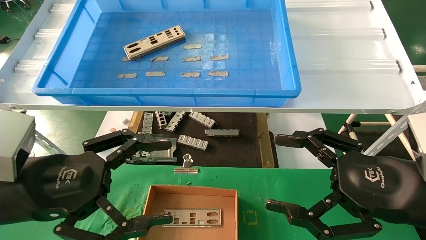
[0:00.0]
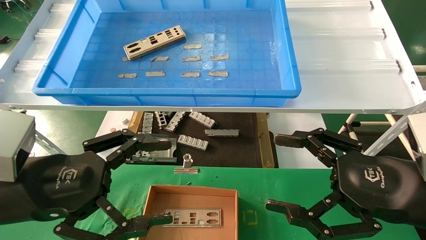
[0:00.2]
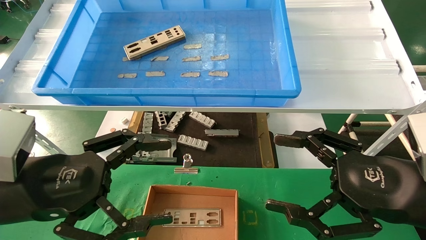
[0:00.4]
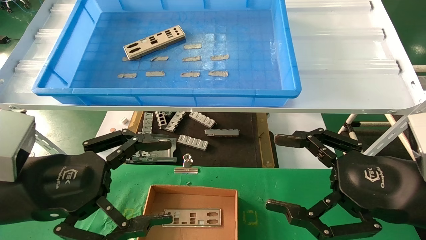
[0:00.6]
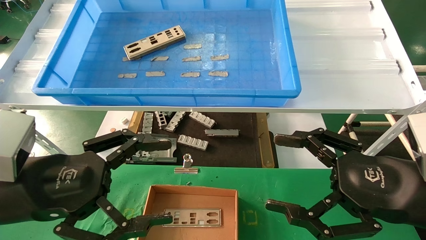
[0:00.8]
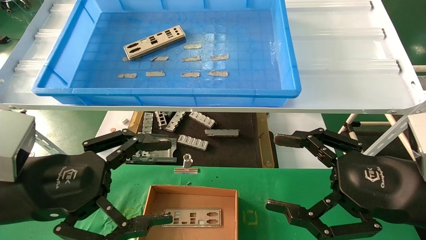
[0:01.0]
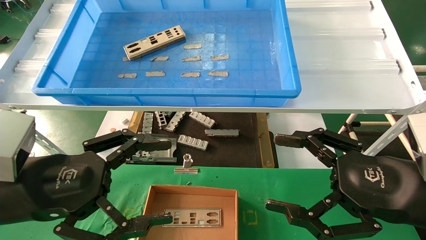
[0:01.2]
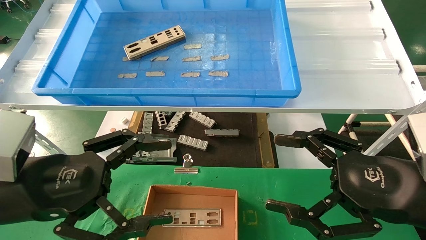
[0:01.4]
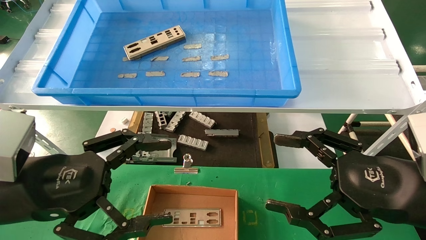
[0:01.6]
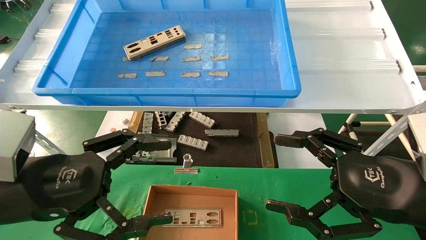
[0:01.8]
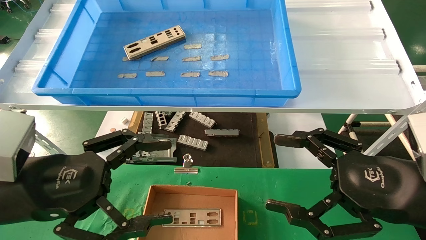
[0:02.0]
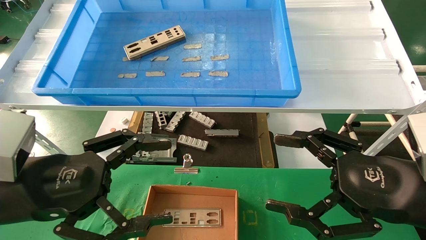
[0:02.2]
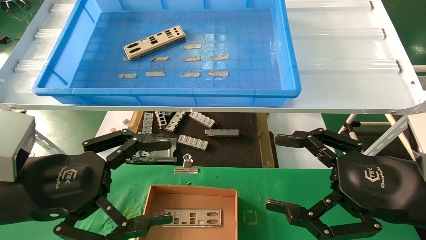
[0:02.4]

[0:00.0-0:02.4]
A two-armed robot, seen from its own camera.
Task of the whole recording: pick up the parts on the tray and put them in the cardboard box.
0.0 to 2.4 s: Both grippers stay put.

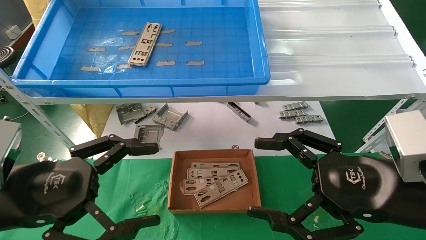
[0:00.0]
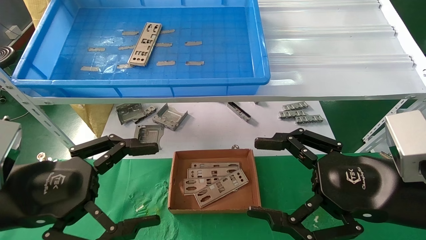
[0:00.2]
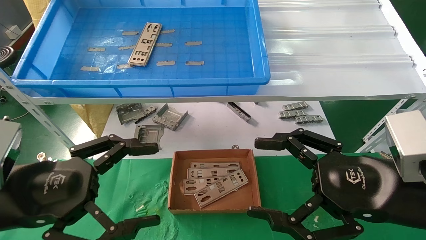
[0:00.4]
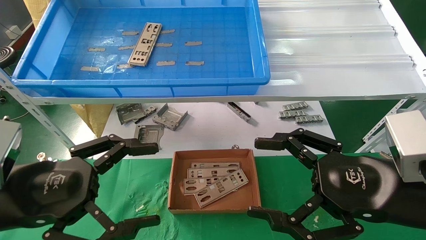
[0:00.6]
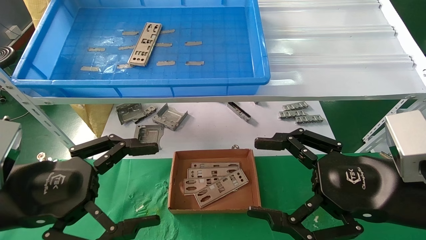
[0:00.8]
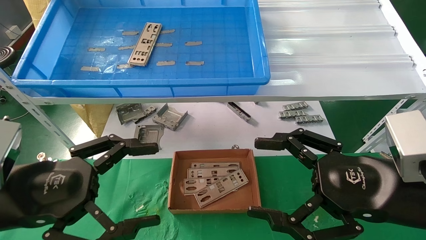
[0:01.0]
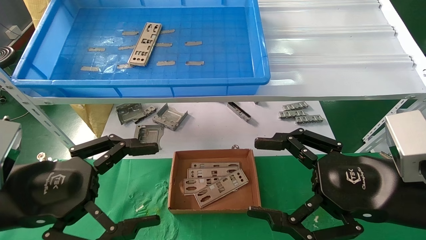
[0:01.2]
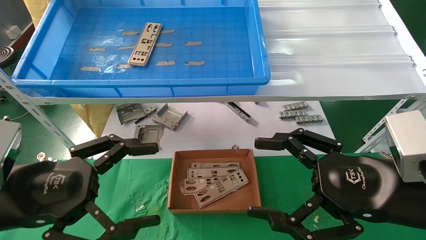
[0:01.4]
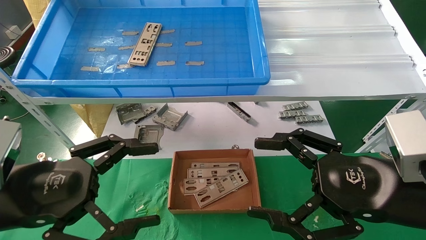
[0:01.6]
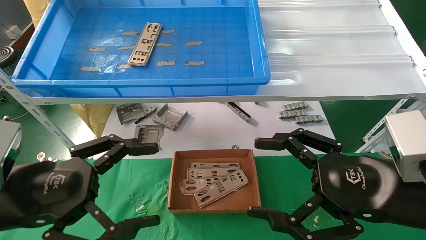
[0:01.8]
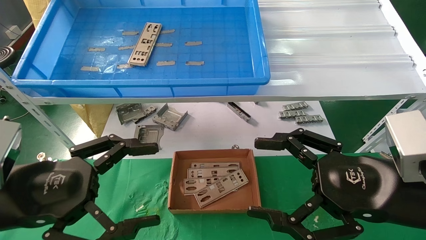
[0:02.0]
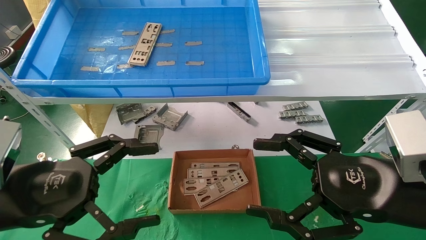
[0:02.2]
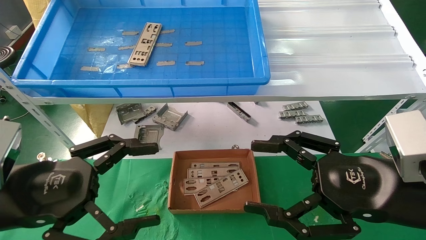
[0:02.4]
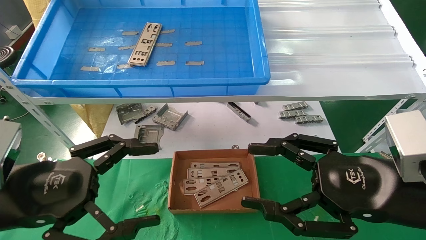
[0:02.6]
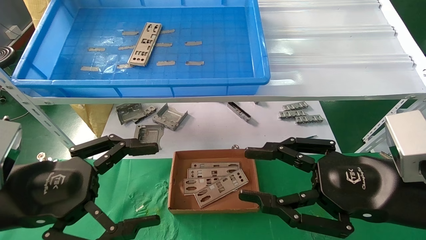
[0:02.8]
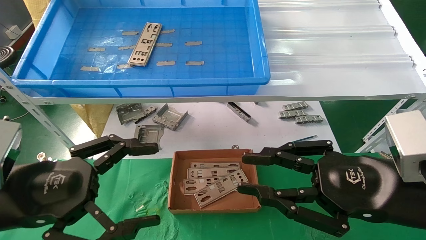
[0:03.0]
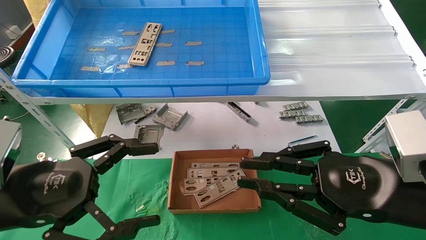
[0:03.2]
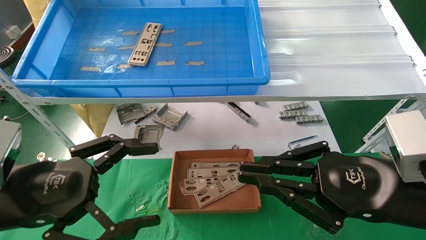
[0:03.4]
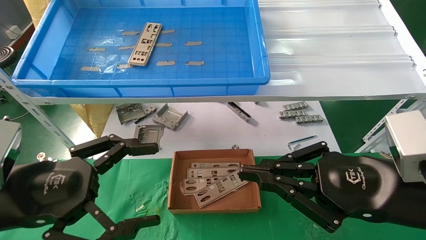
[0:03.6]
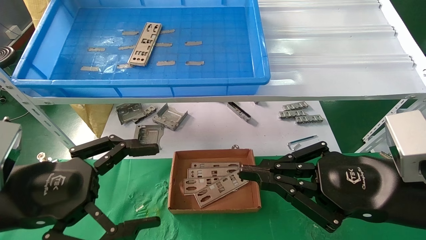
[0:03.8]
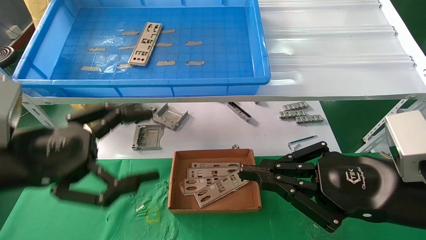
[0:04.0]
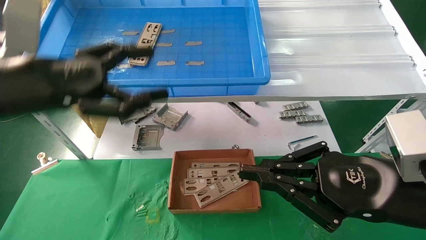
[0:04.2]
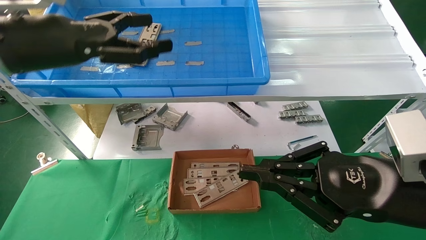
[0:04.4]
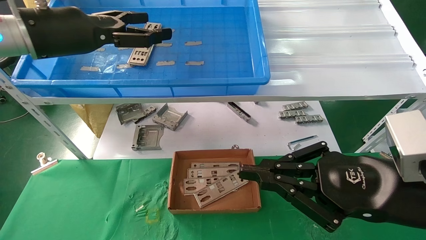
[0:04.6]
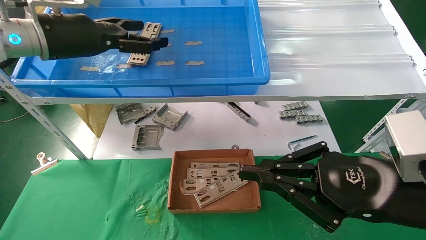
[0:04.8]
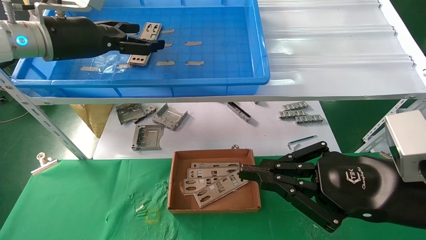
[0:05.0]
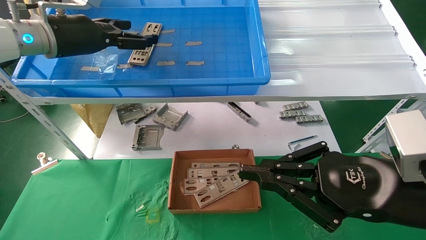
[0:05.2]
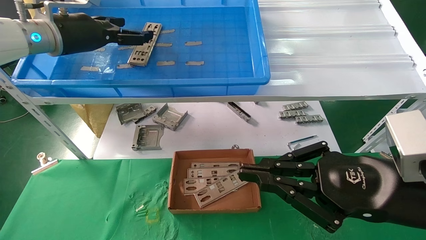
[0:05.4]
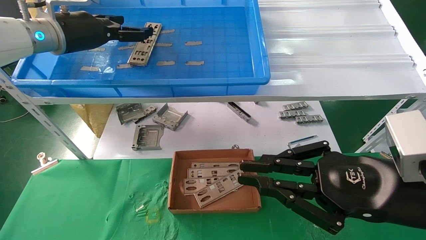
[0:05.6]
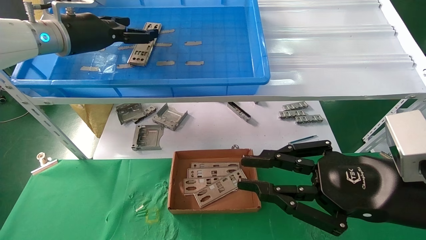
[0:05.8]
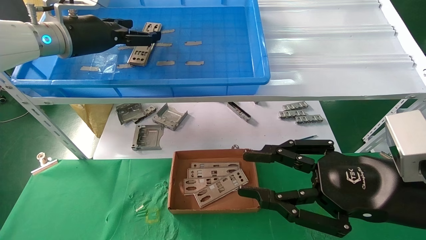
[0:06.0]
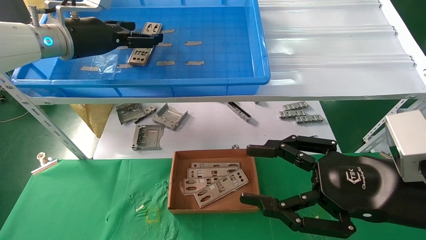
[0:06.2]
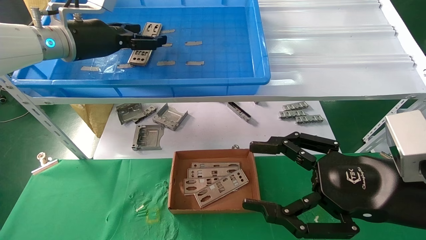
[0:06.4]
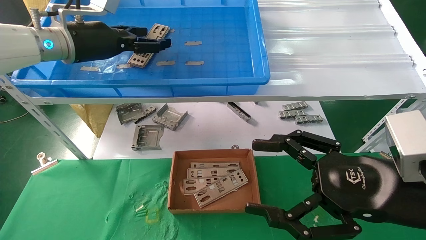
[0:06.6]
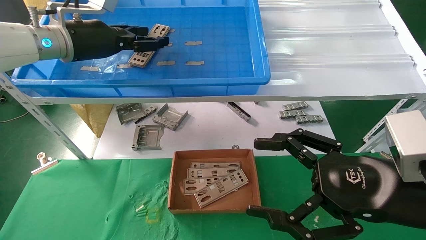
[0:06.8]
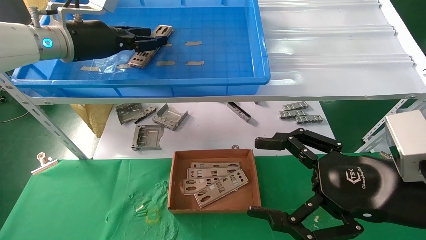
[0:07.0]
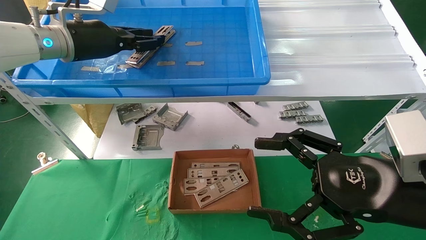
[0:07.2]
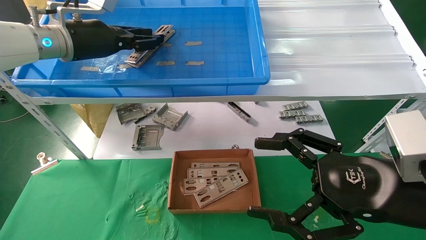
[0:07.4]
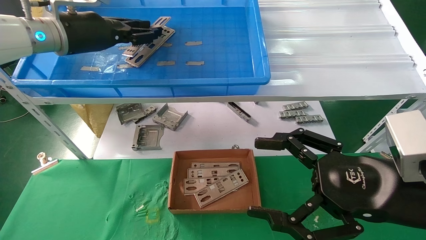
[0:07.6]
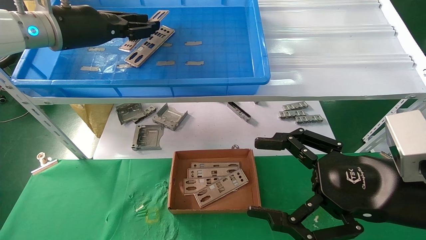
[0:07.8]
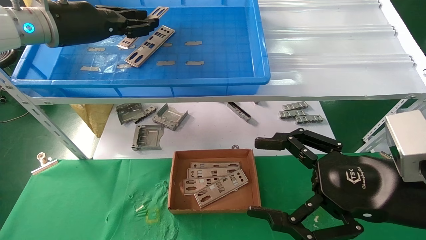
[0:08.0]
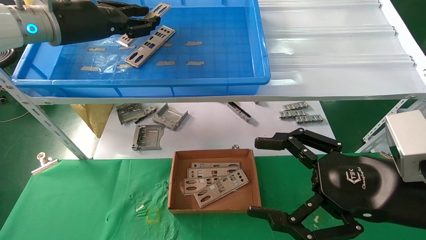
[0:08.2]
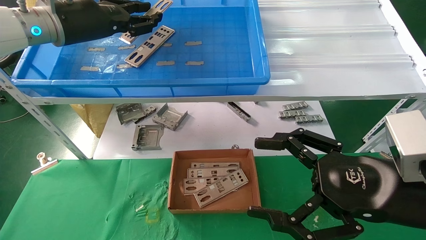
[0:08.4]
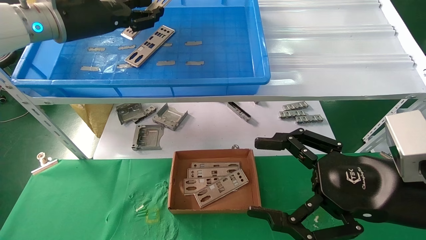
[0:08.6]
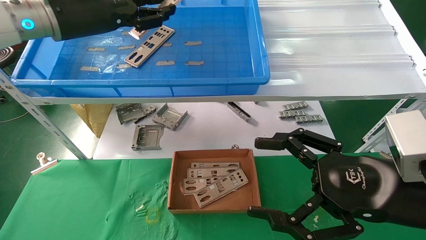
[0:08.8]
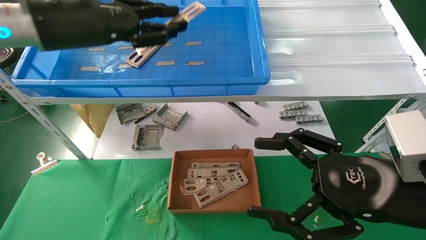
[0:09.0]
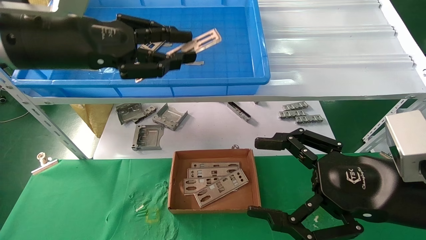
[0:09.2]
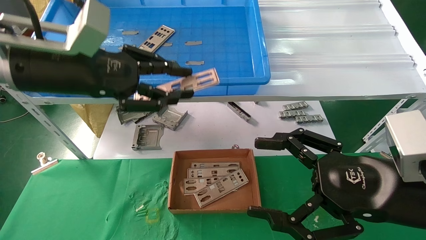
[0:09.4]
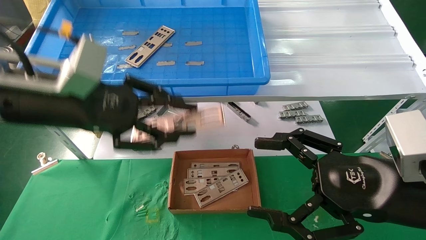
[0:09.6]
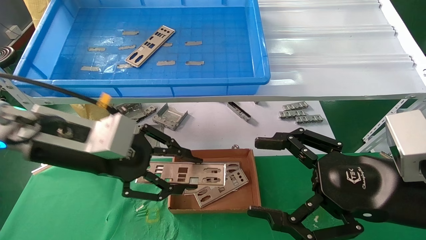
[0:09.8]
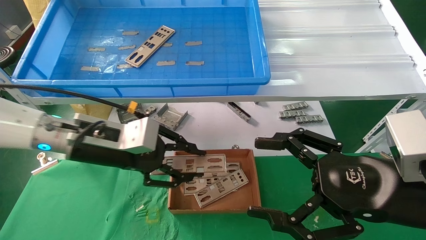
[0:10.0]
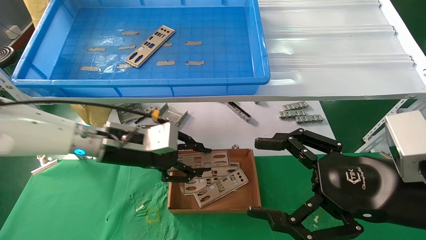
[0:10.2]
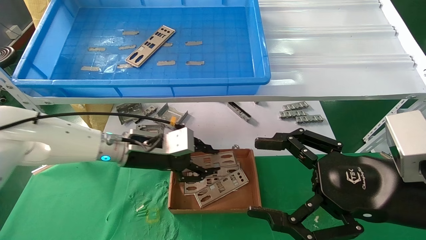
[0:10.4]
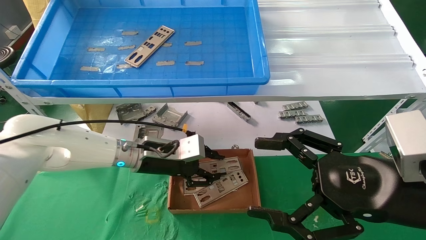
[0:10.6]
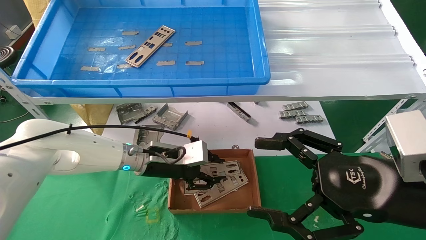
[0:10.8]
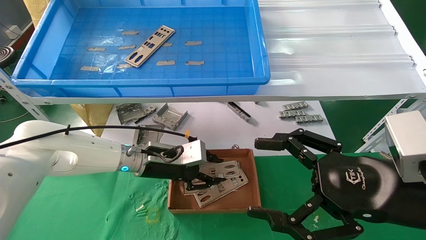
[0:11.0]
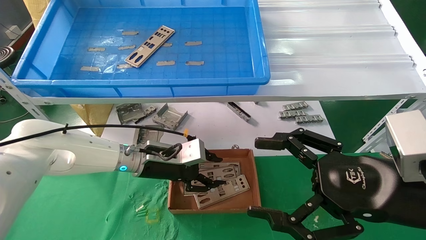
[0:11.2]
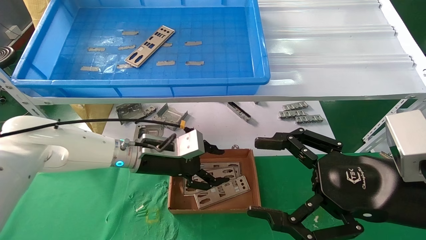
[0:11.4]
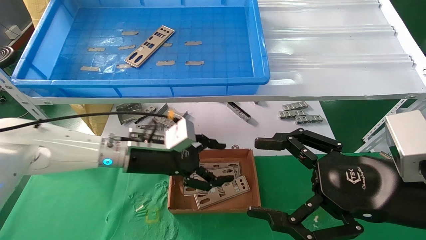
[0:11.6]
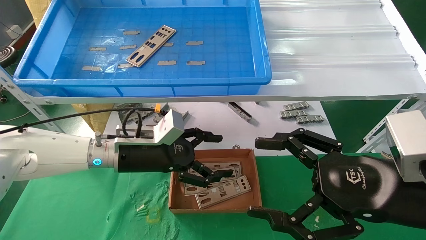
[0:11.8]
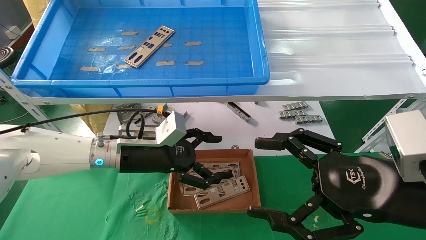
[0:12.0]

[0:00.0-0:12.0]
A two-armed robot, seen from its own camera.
Task of the whole recording: pick up the parts on the tray and put them in the cardboard box.
Step, 4.2 to 7.2 s: Pick up the IO bracket from the container box.
Step, 7.4 to 11.6 s: Place the IO bracket into the ingredient slot.
0.0 to 1.6 s: Both grippers stay about where they are.
1.6 to 3.0 s: The right gripper closes up.
3.0 to 4.4 s: The right gripper closes. Meanwhile the left gripper heads upward and forward, covering about 20 cm.
4.4 to 6.0 s: The left gripper heads forward, covering roughly 10 cm.
6.0 to 7.6 s: The right gripper opens its fingers; the left gripper closes its fingers.
7.6 to 9.0 s: The left gripper moves backward, about 5 cm.
9.0 to 10.4 s: The left gripper travels downward by about 20 cm.
10.4 to 12.0 s: The left gripper opens up.

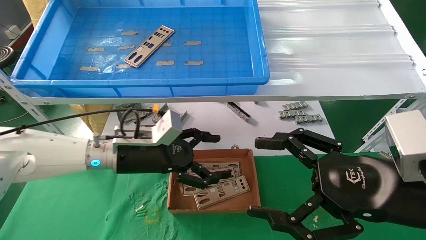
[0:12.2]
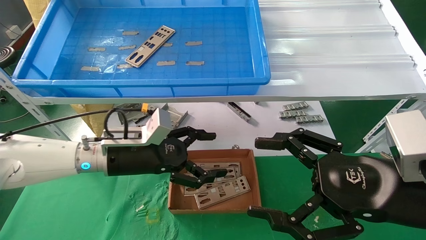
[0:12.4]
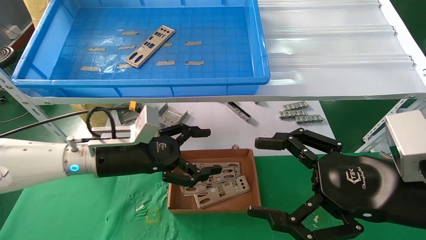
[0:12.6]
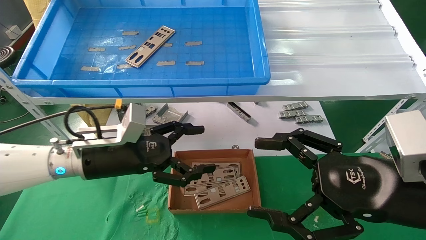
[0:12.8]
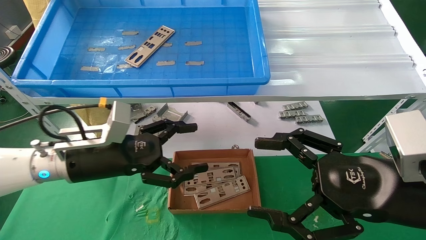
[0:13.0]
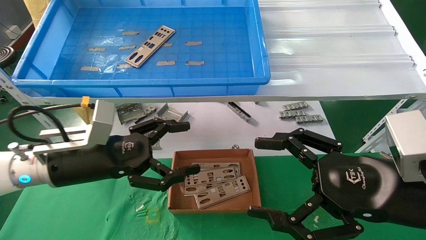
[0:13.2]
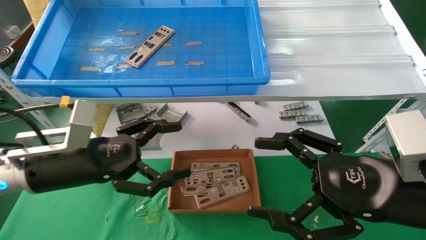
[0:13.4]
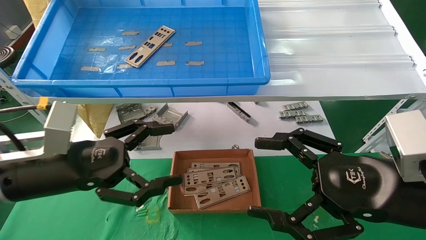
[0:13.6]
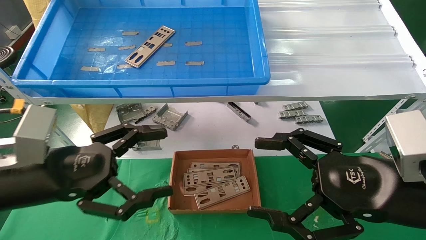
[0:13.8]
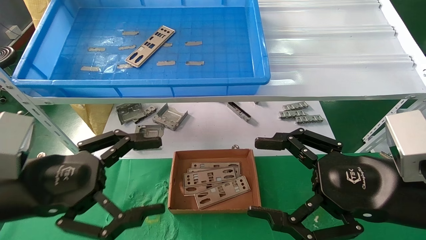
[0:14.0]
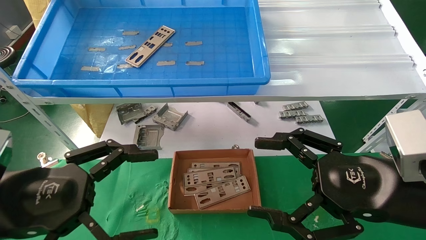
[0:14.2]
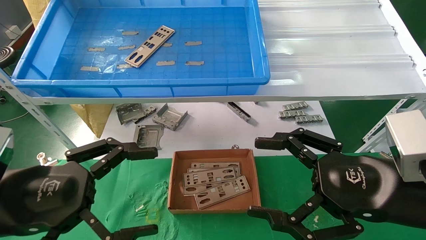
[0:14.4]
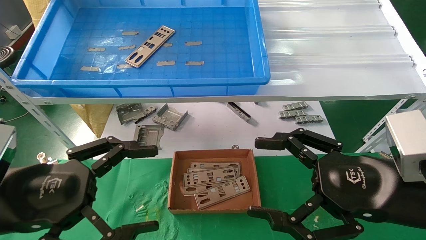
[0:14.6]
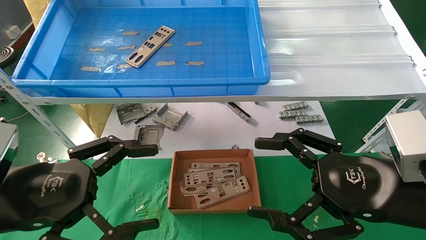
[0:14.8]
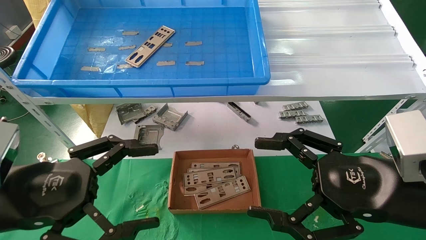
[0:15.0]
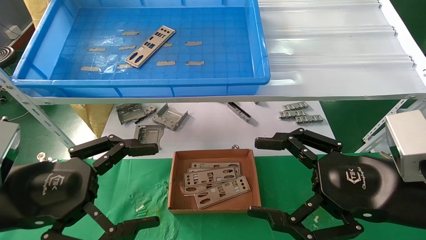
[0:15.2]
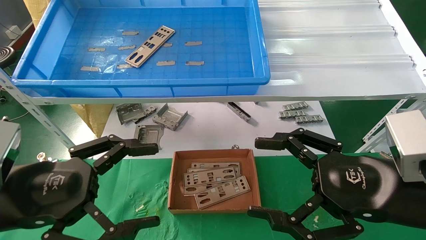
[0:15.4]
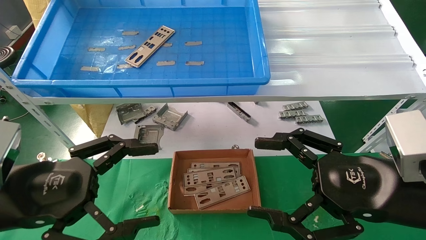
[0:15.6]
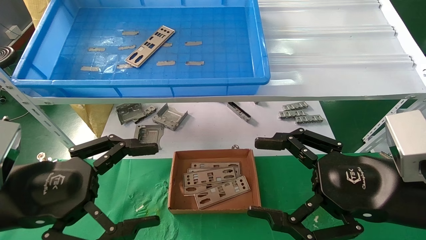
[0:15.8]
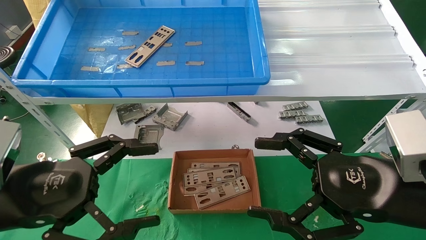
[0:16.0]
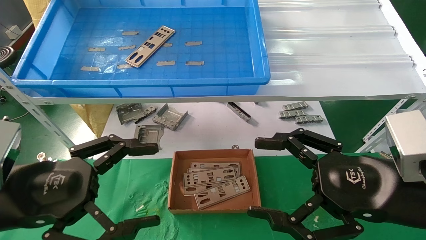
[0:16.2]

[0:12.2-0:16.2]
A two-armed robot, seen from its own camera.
Task of the whole recording: pick up the parts on the tray and put them in the cardboard box.
12.2 to 13.6 s: The left gripper moves backward and to the left, about 15 cm.
13.6 to 14.8 s: The left gripper travels backward by about 5 cm.
14.8 to 16.2 s: The two grippers keep their place.
